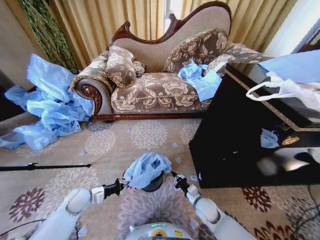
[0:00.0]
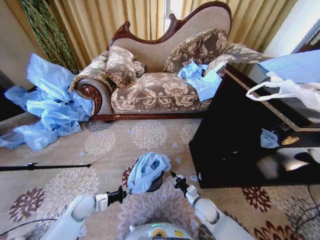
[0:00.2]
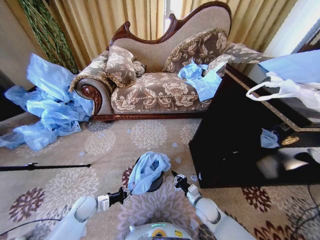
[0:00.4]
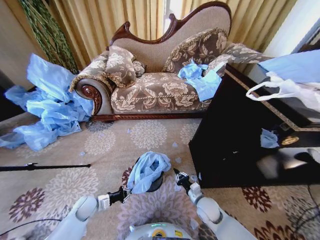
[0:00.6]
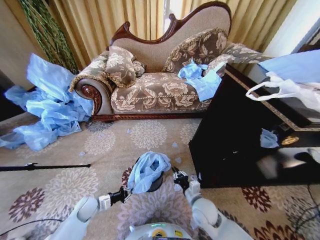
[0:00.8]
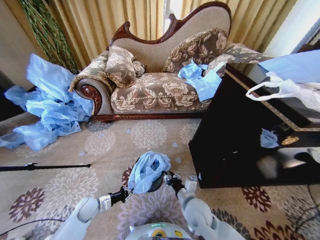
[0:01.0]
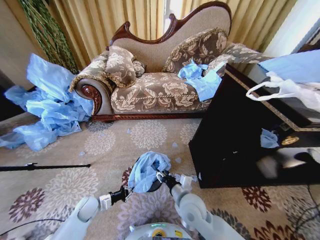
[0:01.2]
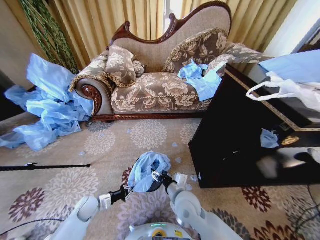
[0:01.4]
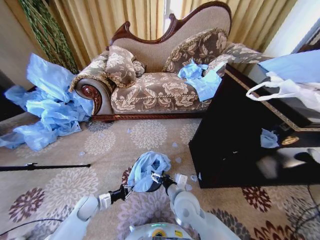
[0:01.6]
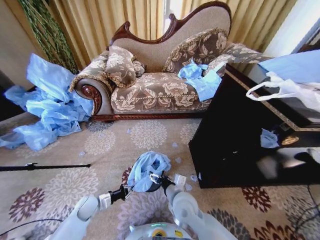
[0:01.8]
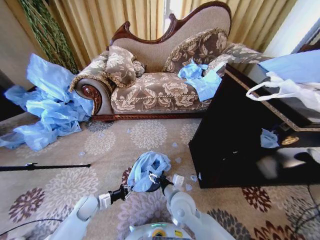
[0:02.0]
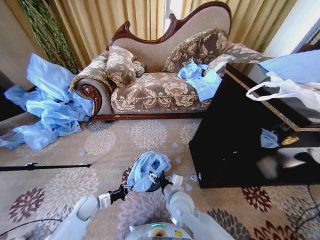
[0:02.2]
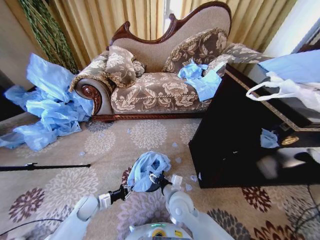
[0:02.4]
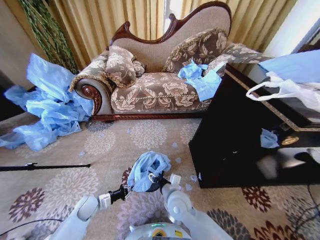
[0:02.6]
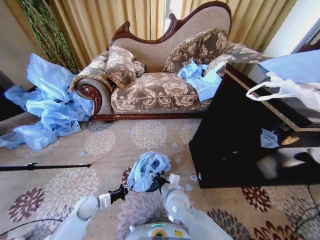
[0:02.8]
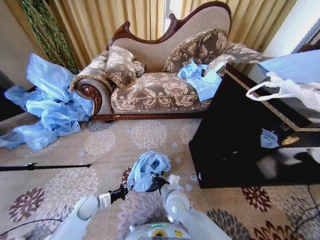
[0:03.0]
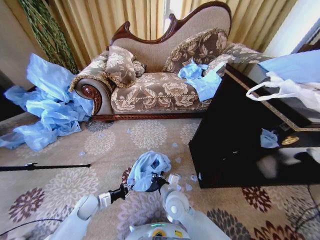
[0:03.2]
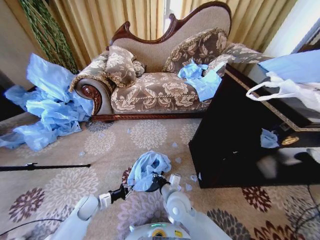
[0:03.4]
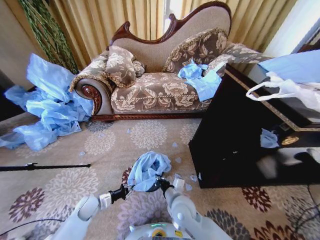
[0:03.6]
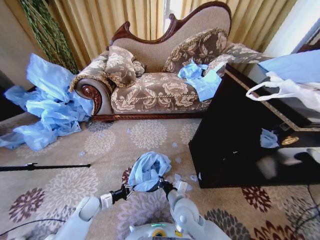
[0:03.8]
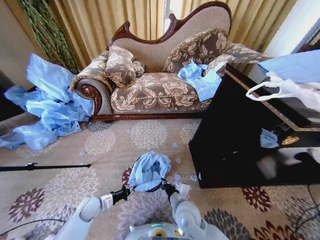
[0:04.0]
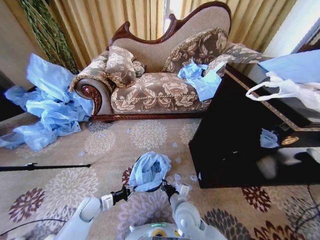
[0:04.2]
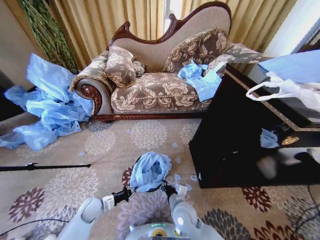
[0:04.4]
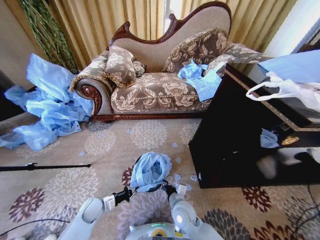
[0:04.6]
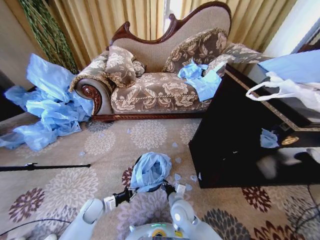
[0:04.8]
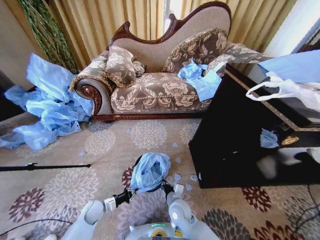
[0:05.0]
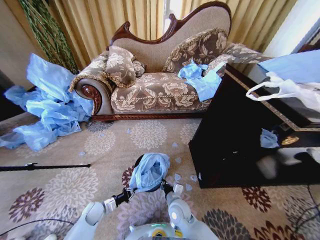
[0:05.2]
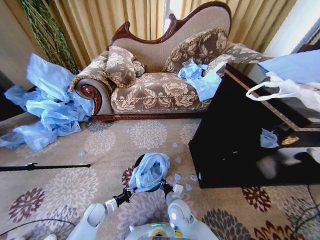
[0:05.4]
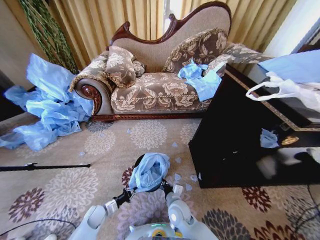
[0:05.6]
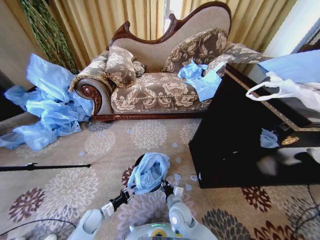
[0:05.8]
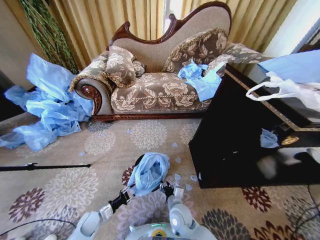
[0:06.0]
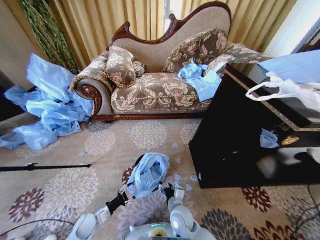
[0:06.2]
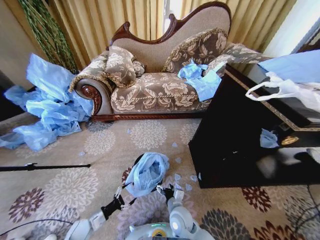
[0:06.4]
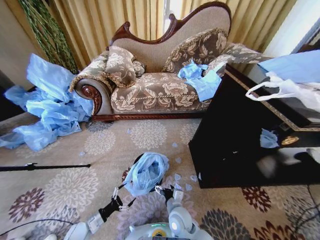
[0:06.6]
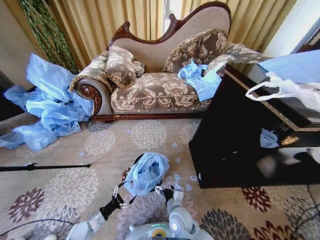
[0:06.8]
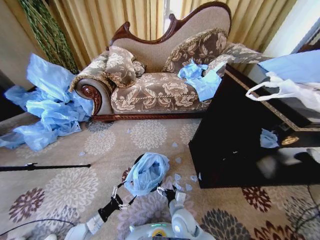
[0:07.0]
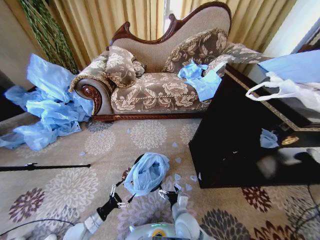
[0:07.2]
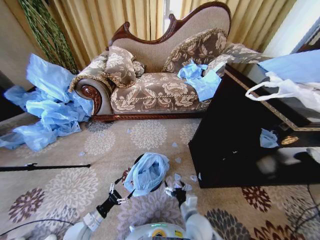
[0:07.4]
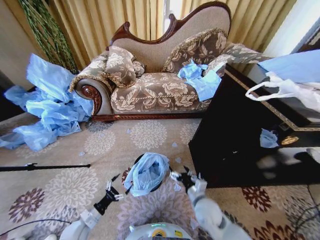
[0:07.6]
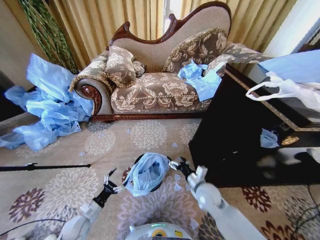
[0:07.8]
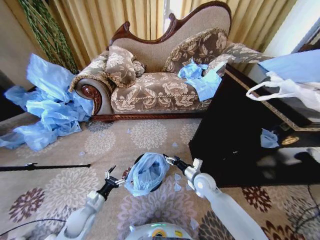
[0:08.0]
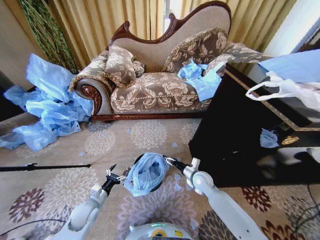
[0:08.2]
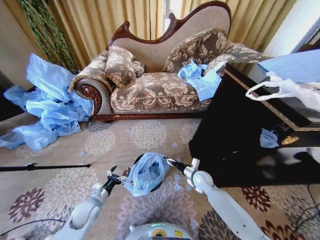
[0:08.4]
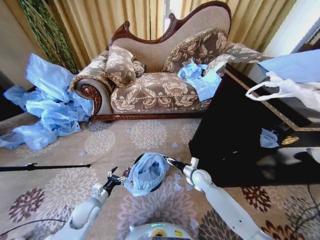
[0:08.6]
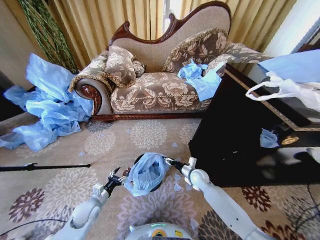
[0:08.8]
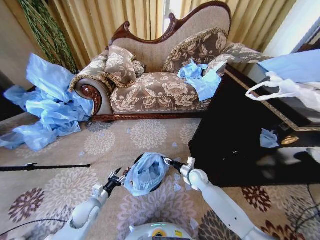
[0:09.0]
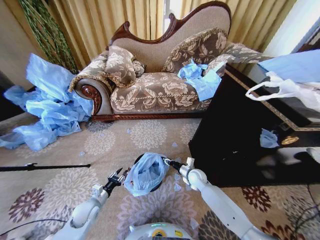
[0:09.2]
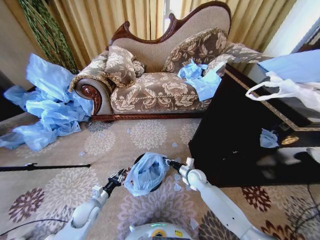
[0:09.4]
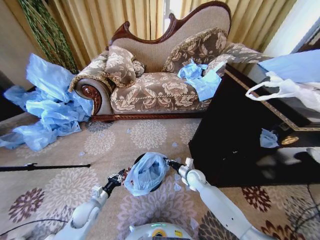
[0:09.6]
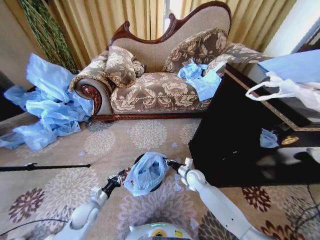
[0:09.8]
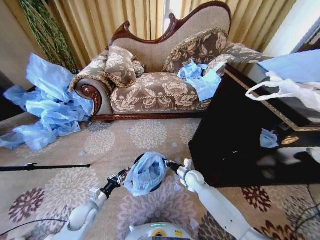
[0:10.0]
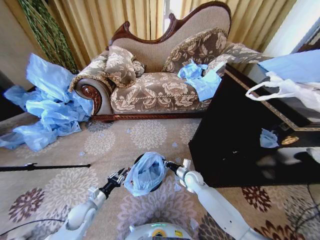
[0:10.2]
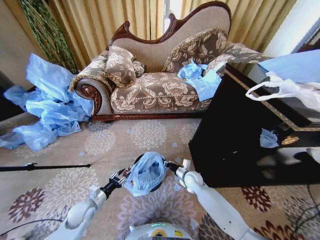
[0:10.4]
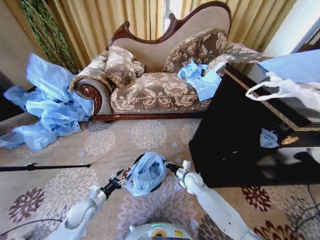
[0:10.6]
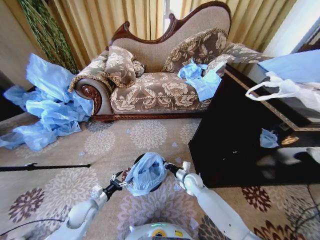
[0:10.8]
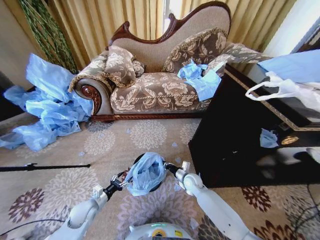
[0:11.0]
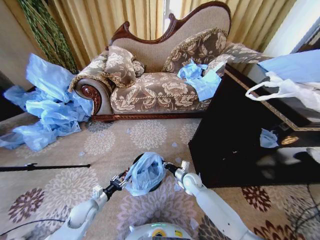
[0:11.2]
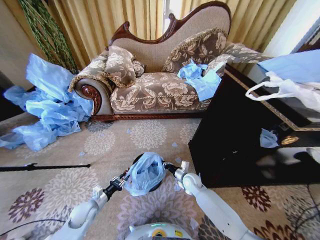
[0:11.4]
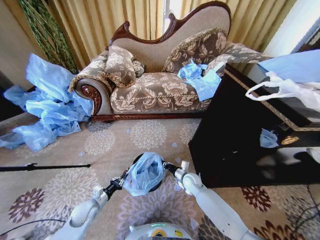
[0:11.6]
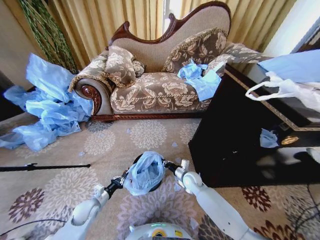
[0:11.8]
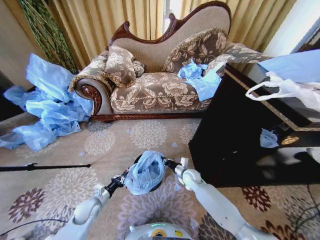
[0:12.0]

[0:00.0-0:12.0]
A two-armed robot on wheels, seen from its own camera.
Task of the whole recording: Place a garbage bag over the trash bin.
0:00.0 to 0:01.6: The right gripper is displaced upward and to the left by roughly 20 cm, and opens up; the left gripper heads downward, covering about 5 cm.
0:01.6 to 0:03.0: The right gripper closes up.
0:03.0 to 0:04.4: The right gripper changes place by roughly 5 cm.
0:04.4 to 0:06.0: The left gripper moves downward, roughly 5 cm, and opens.
0:06.0 to 0:07.6: The right gripper travels to the right and upward by approximately 10 cm, and opens up, while the left gripper is displaced upward by about 5 cm, and opens its fingers.
0:07.6 to 0:09.0: The left gripper heads forward and upward, covering approximately 10 cm, and closes. Meanwhile the right gripper is displaced forward by approximately 15 cm, and closes up.
0:09.0 to 0:10.4: The right gripper closes its fingers, while the left gripper closes, then reopens.
0:10.4 to 0:12.0: The left gripper closes up.

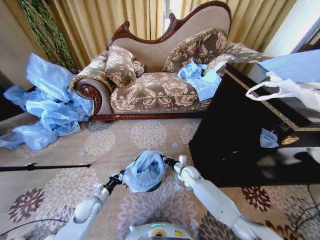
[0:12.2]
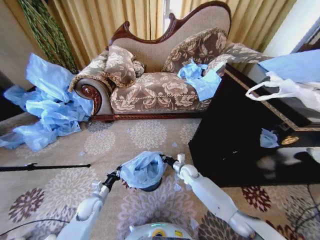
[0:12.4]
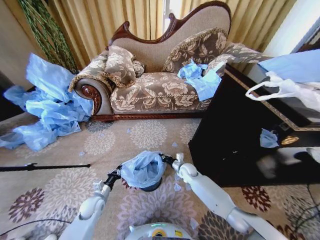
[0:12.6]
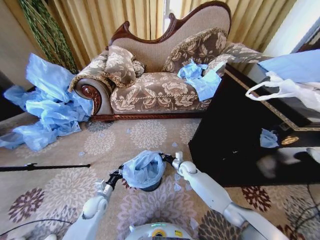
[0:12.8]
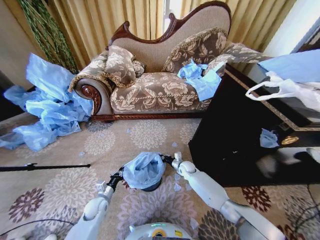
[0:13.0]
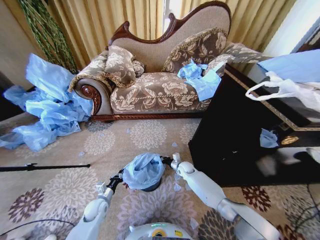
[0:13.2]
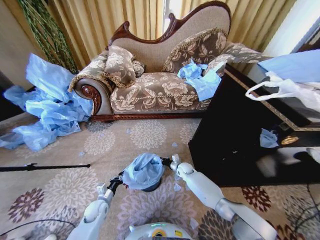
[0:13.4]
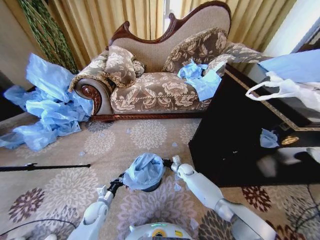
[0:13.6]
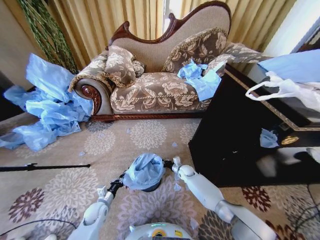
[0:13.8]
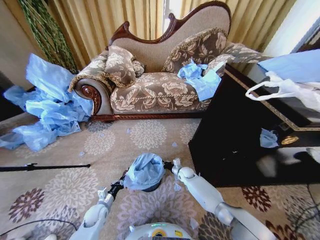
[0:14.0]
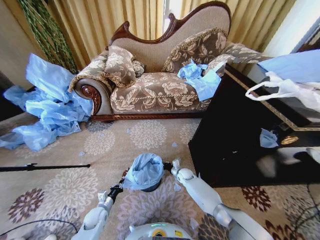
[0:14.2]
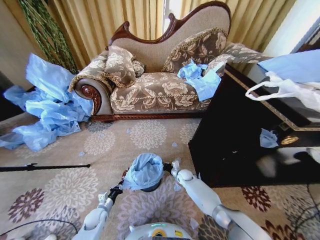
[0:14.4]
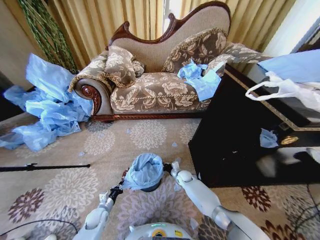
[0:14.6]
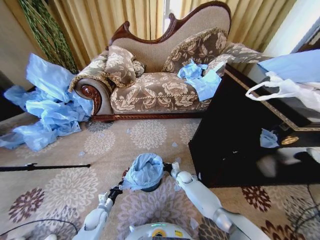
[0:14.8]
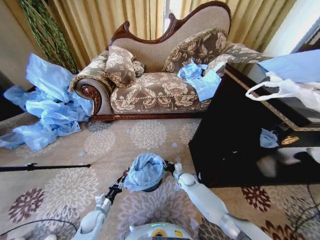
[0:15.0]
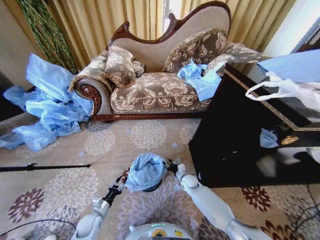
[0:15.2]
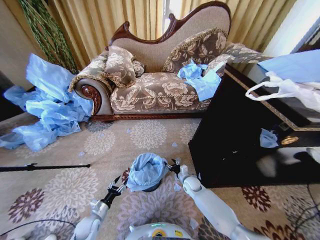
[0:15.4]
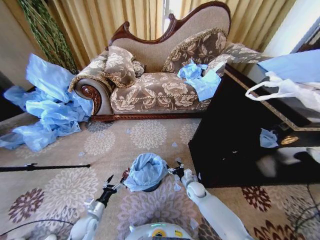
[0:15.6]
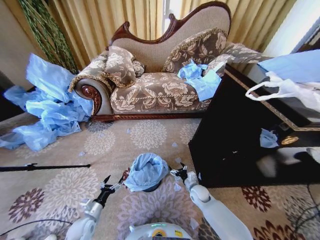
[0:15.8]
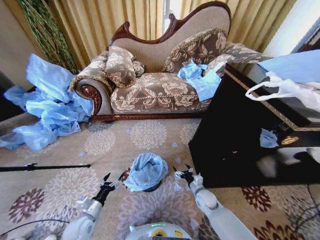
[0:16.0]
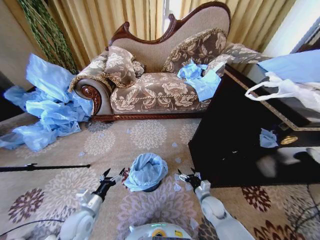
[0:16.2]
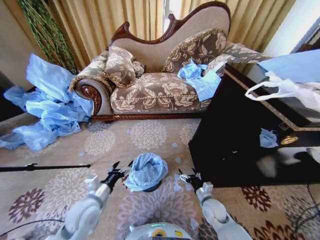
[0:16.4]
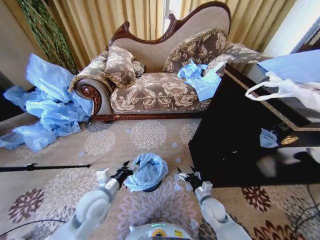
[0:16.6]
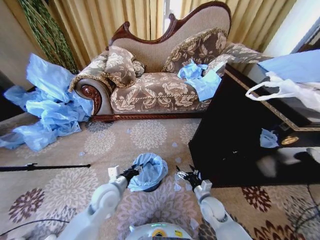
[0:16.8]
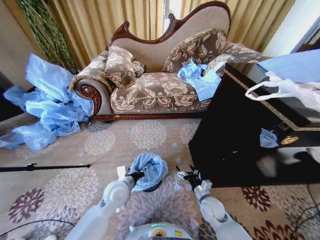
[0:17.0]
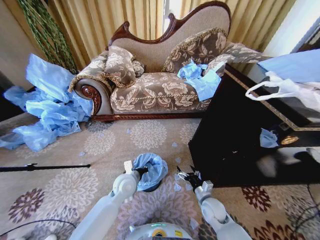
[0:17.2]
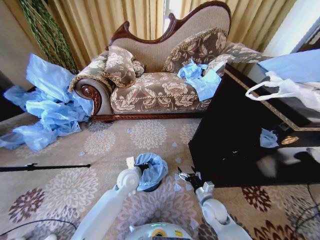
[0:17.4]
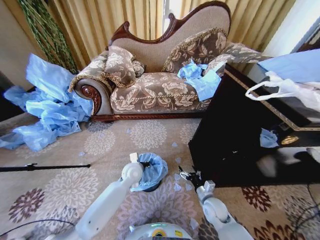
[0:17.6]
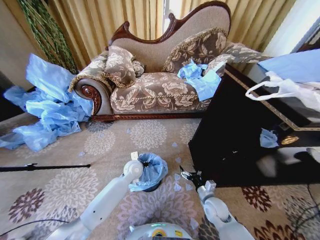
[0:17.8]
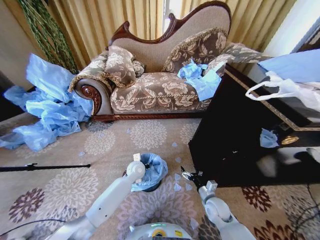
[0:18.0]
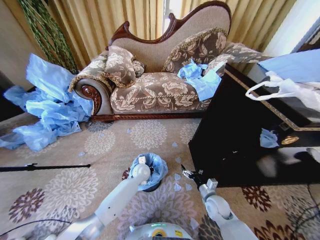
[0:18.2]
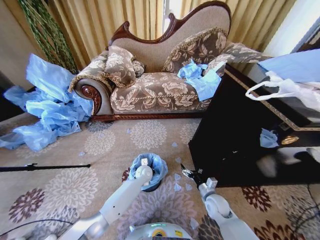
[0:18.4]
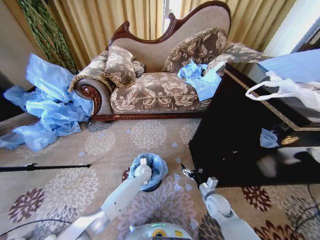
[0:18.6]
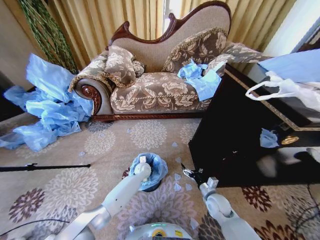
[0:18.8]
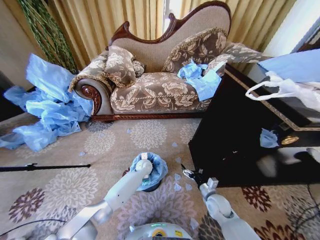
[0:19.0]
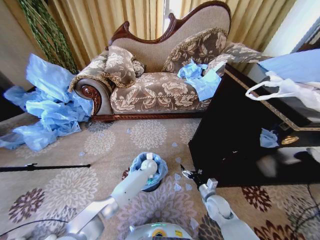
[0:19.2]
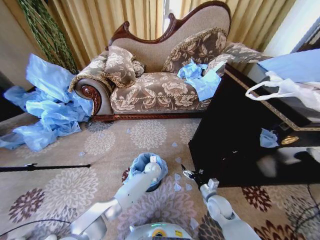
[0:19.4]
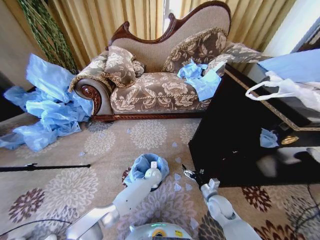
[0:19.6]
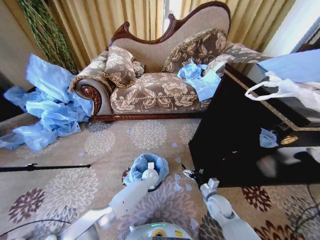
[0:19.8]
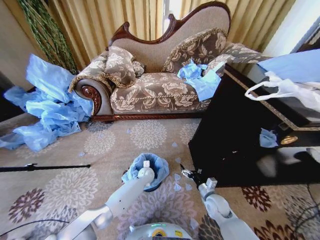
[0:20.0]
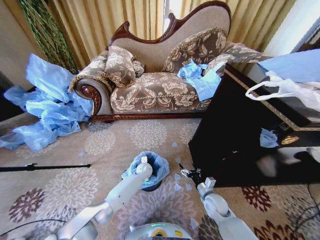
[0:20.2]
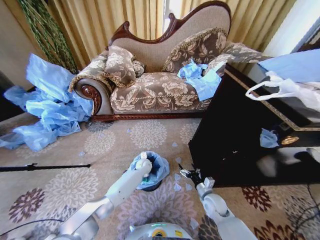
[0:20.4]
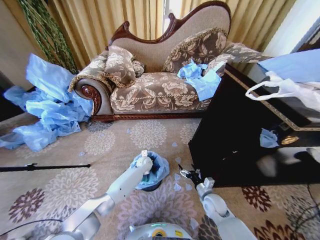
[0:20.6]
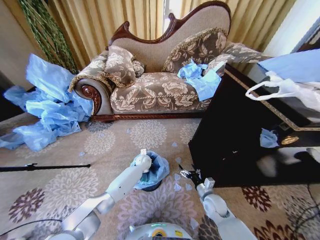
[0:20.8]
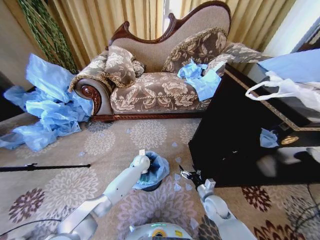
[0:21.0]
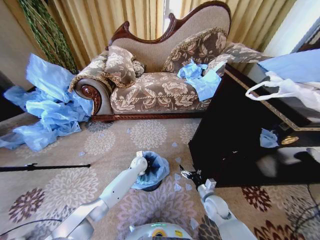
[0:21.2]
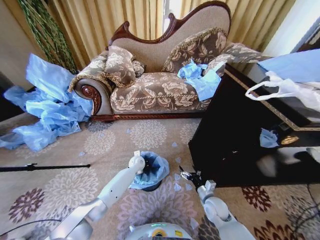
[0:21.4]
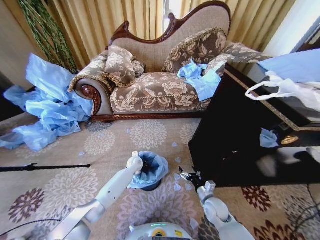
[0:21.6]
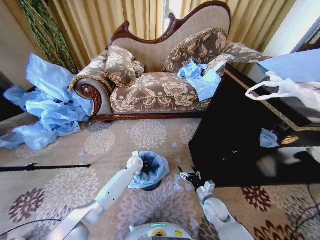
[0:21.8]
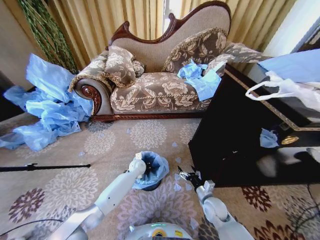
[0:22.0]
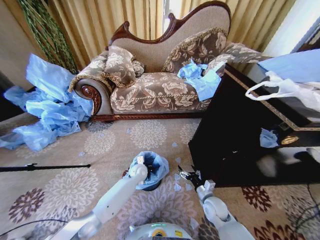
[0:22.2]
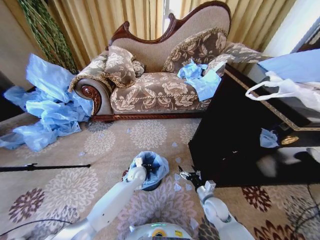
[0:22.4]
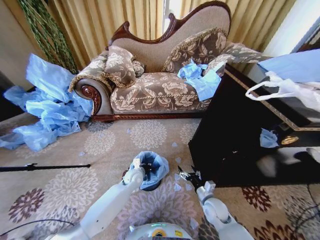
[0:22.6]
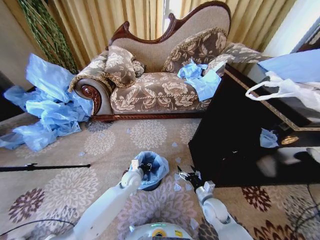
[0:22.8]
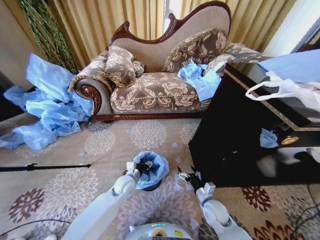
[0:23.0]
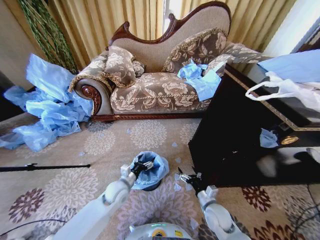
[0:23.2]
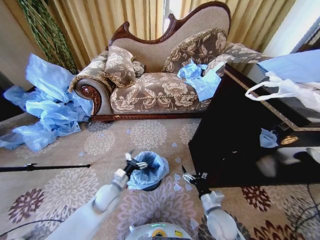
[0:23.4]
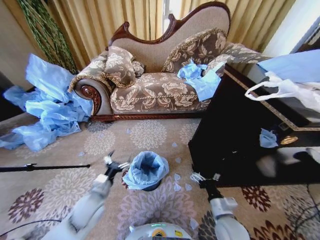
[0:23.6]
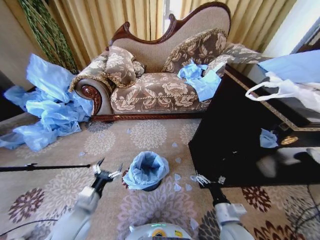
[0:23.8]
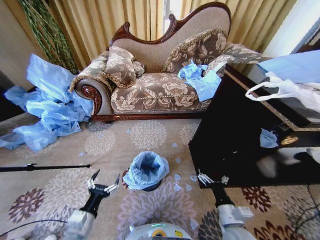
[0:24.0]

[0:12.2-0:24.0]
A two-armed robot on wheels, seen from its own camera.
Task of the whole recording: Place a garbage bag over the trash bin.
0:12.2 to 0:13.6: The left gripper ends up about 5 cm from where it was, while the right gripper goes roughly 10 cm downward and forward.
0:13.6 to 0:15.2: The right gripper moves backward, about 5 cm, and opens its fingers. The left gripper ends up about 5 cm from where it was, and opens up.
0:15.2 to 0:16.6: The right gripper moves backward, to the right and upward, some 15 cm, and opens. The left gripper moves upward and to the right, some 25 cm.
0:16.6 to 0:18.2: The left gripper is displaced forward, downward and to the right by approximately 25 cm, and closes up.
0:18.2 to 0:19.6: The left gripper travels downward and to the right by approximately 10 cm.
0:19.6 to 0:21.0: The left gripper goes approximately 10 cm to the left and forward.
0:21.0 to 0:22.6: The left gripper shifts some 10 cm backward.
0:22.6 to 0:24.0: The right gripper travels backward and upward by approximately 15 cm, while the left gripper goes approximately 30 cm backward and to the left, and opens its fingers.
